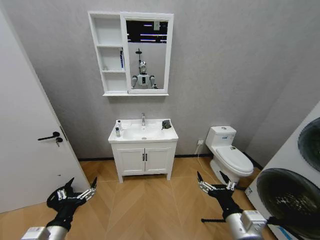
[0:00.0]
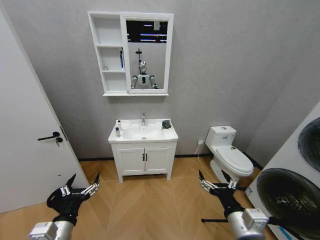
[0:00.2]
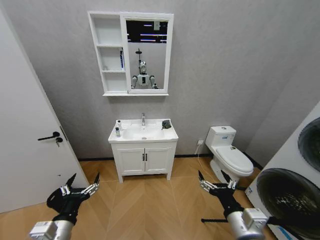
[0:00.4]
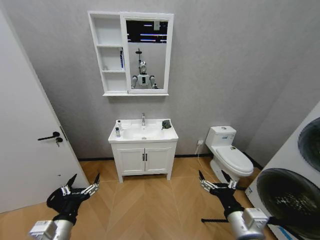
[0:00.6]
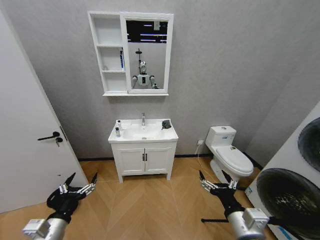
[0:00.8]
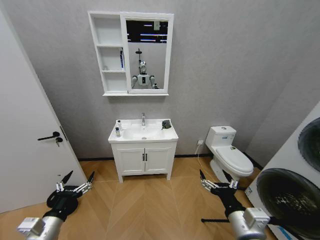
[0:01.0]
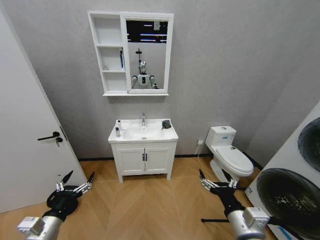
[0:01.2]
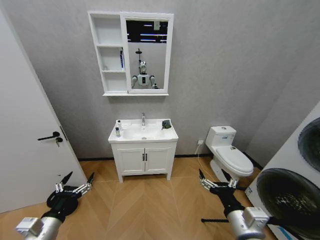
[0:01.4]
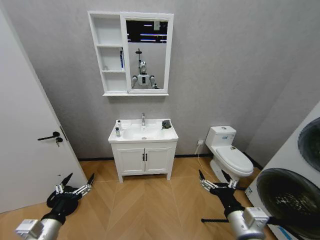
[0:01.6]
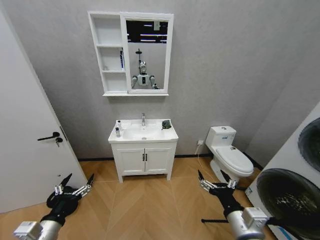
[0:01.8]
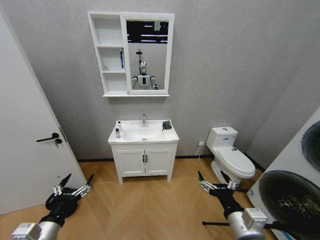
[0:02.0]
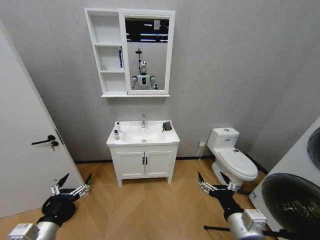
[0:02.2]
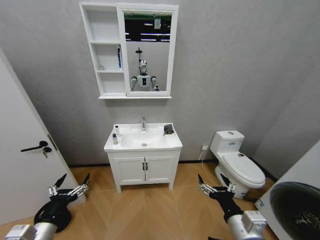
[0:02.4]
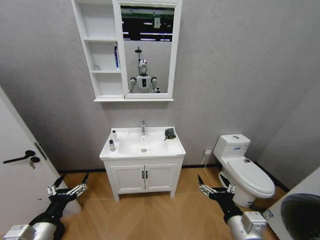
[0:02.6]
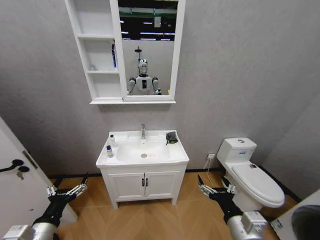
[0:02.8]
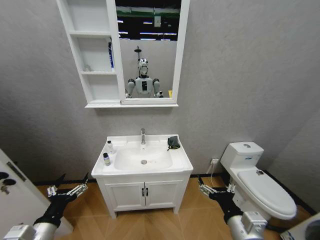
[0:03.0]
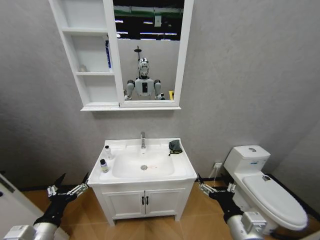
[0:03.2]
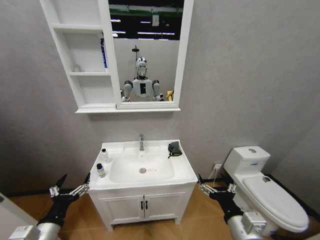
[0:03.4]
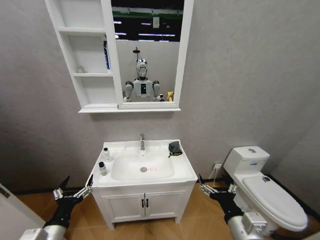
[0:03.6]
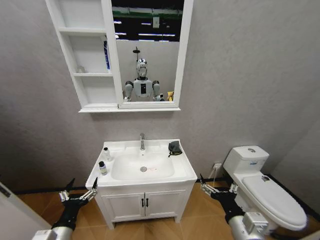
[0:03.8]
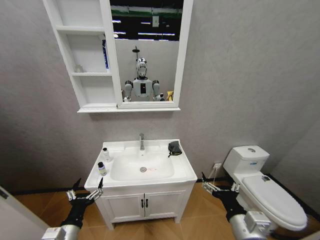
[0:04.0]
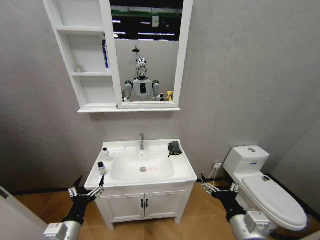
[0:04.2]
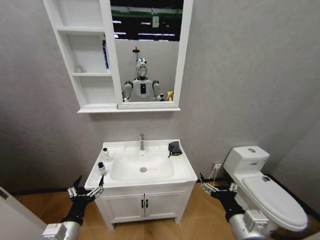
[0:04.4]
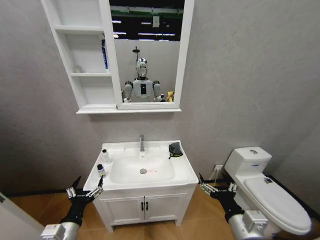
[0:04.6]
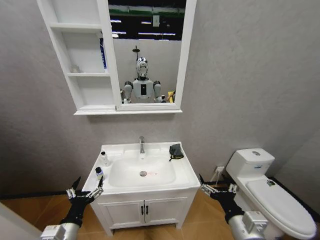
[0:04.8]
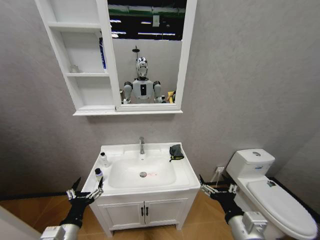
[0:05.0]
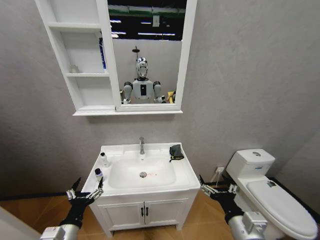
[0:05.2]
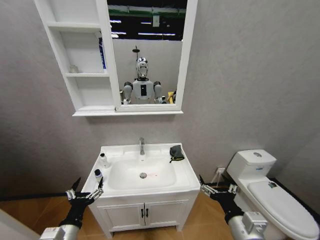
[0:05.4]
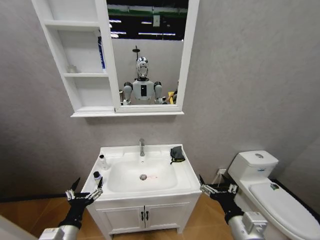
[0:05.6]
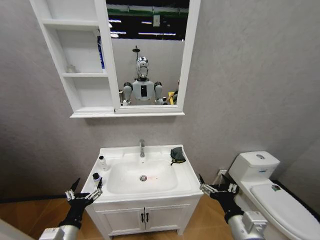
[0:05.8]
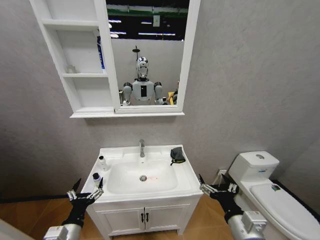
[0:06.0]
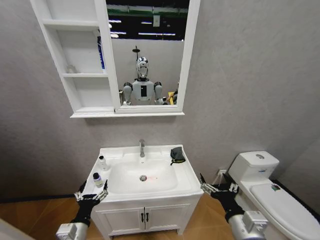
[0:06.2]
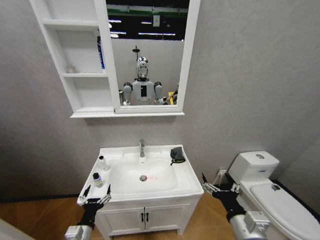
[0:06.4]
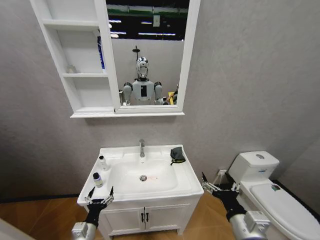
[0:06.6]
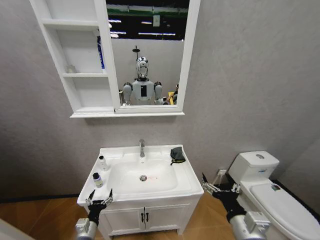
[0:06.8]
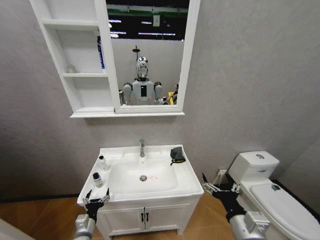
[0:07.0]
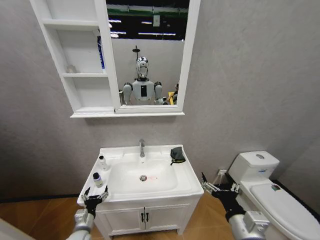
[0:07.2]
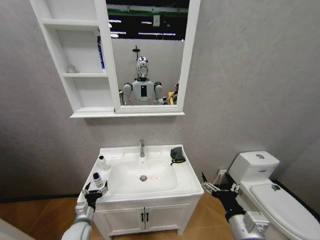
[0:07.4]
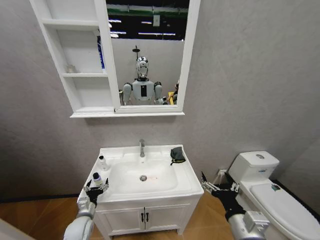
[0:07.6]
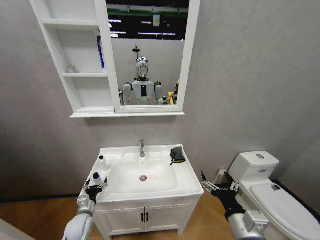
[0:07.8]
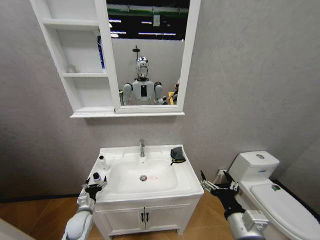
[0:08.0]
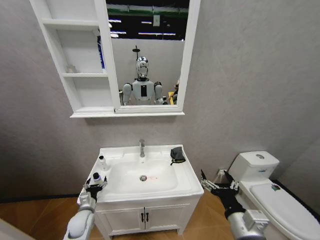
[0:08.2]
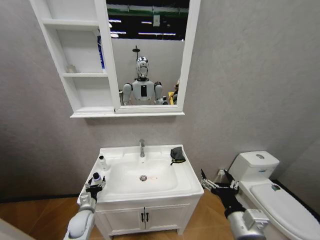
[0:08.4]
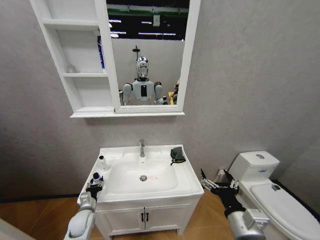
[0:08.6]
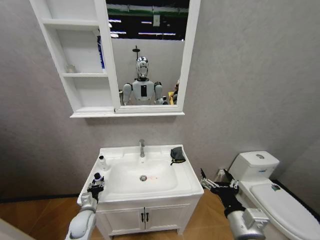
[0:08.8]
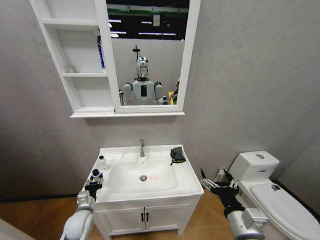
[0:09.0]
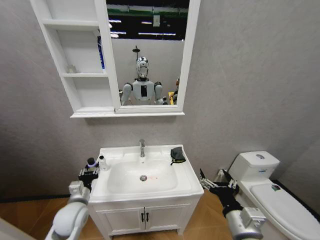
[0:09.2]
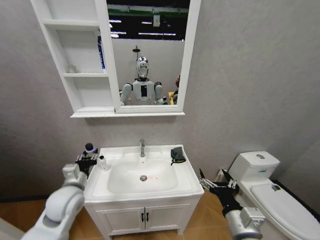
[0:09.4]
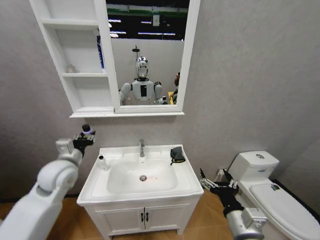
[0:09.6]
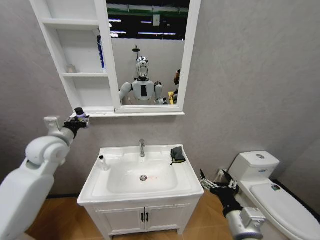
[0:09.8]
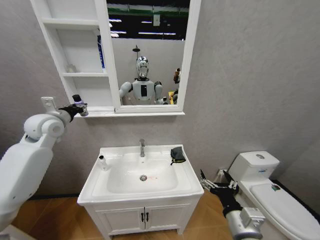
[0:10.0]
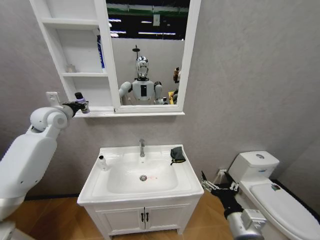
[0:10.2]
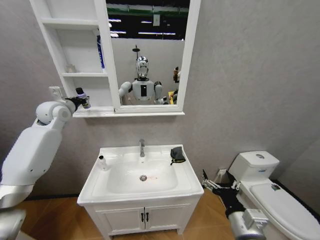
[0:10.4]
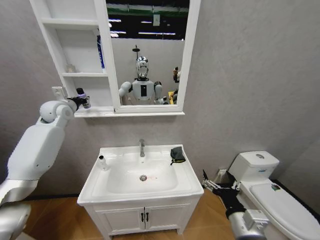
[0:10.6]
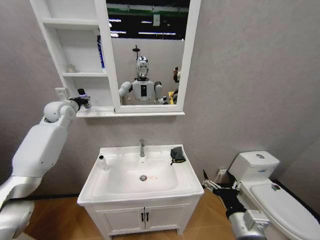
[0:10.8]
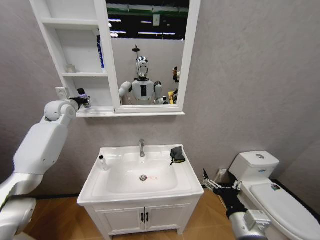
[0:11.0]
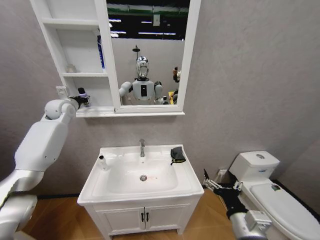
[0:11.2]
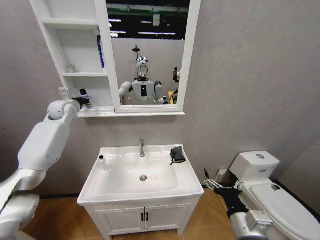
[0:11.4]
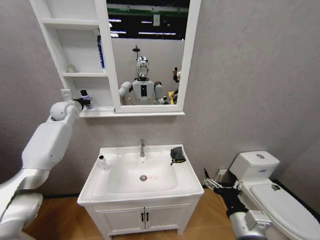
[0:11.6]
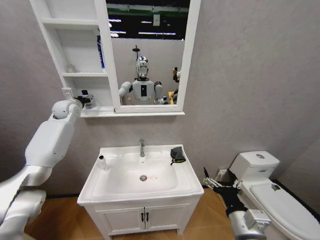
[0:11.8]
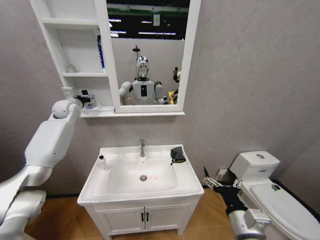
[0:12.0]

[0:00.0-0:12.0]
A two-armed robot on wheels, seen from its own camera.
Task of the whole recording: Move facial cleanser and shampoo from washbasin to cabinet, then wipe washbasin with towel.
0:03.0 to 0:04.4: The left gripper moves to the right, roughly 5 cm.
0:06.0 to 0:07.6: The left gripper moves forward and downward, approximately 15 cm.
0:07.6 to 0:09.0: The left gripper closes its fingers.
0:09.0 to 0:10.4: The left gripper moves upward and forward, some 50 cm.
0:10.4 to 0:12.0: The left gripper heads forward, covering approximately 5 cm, and opens its fingers.

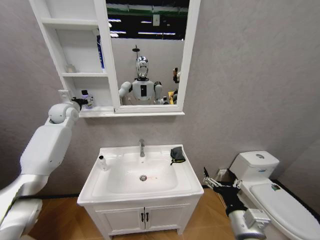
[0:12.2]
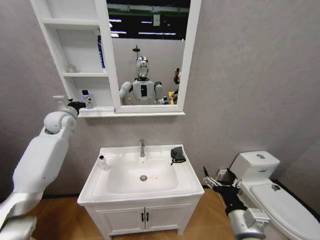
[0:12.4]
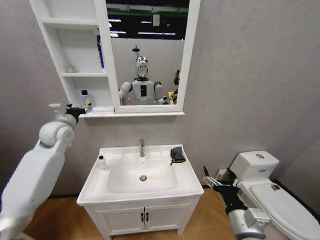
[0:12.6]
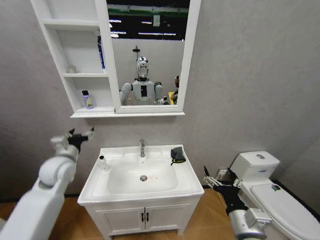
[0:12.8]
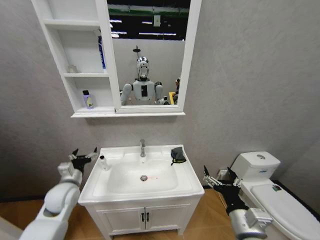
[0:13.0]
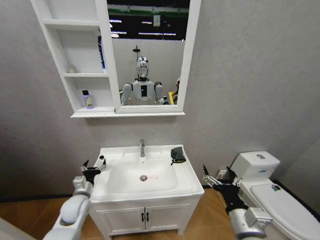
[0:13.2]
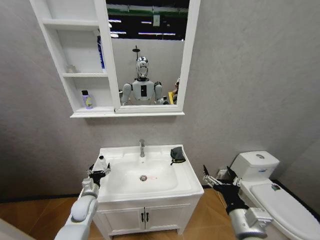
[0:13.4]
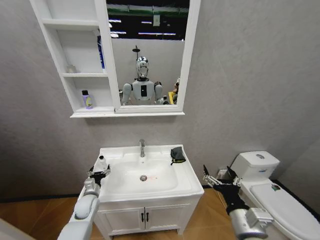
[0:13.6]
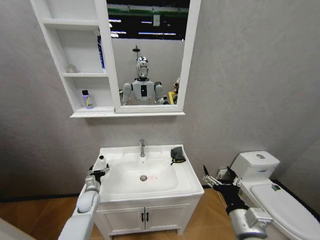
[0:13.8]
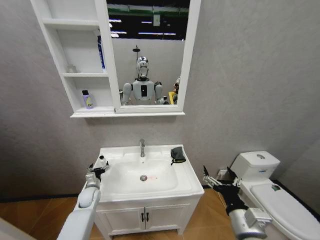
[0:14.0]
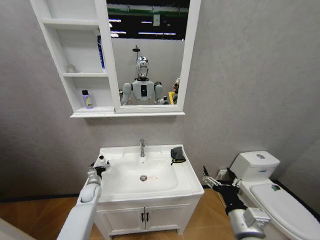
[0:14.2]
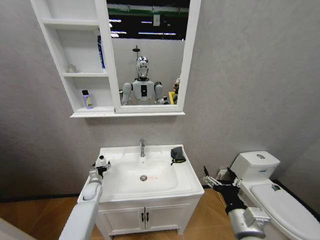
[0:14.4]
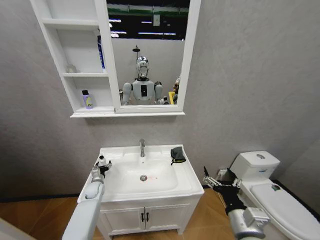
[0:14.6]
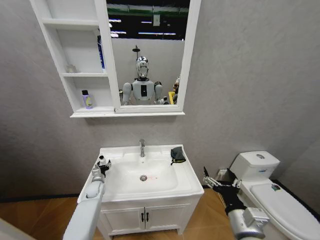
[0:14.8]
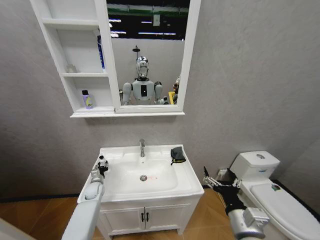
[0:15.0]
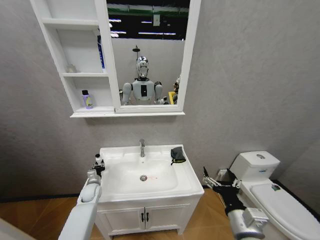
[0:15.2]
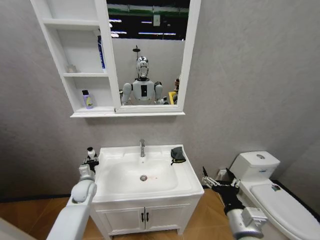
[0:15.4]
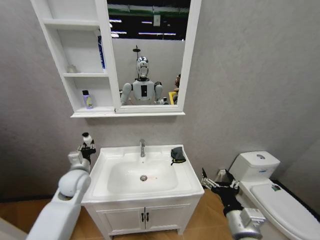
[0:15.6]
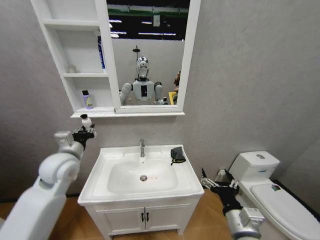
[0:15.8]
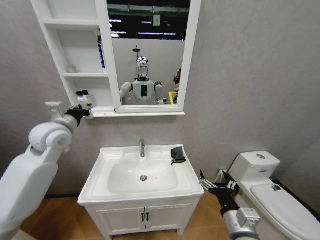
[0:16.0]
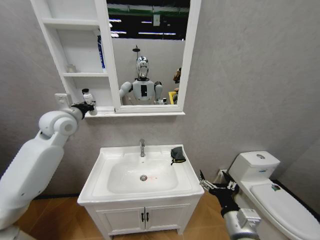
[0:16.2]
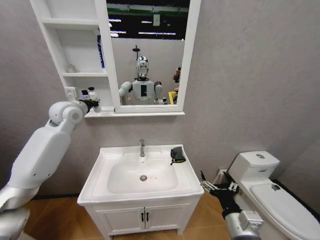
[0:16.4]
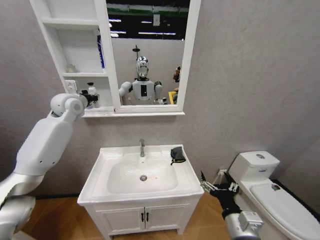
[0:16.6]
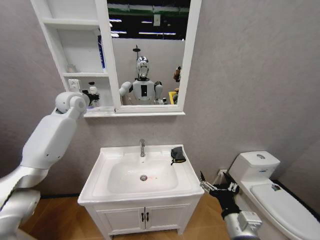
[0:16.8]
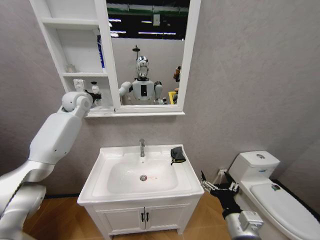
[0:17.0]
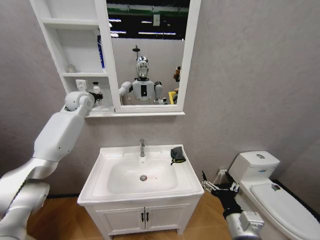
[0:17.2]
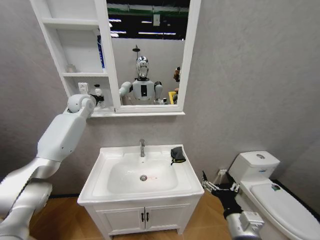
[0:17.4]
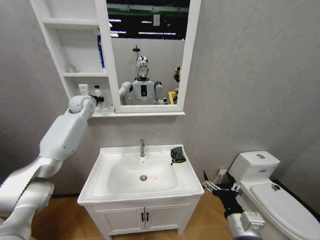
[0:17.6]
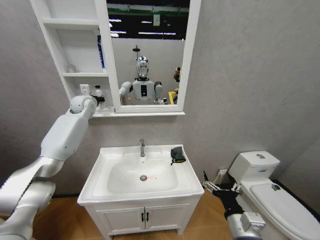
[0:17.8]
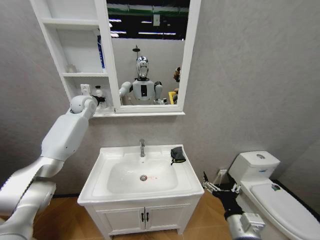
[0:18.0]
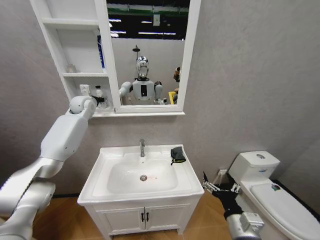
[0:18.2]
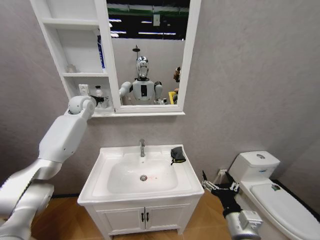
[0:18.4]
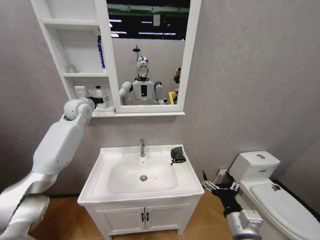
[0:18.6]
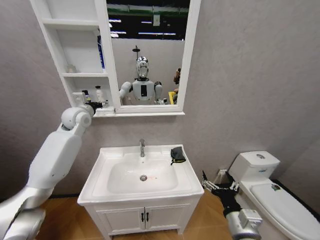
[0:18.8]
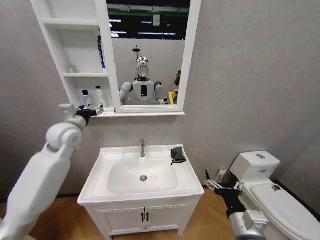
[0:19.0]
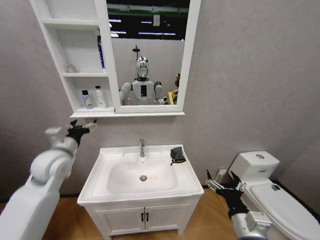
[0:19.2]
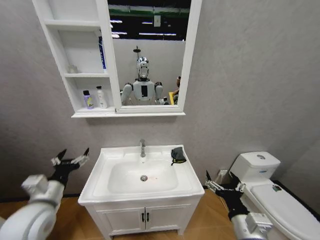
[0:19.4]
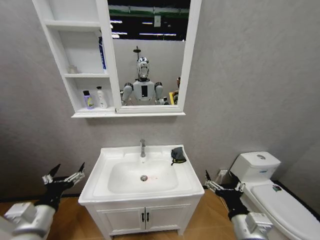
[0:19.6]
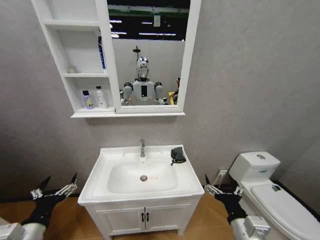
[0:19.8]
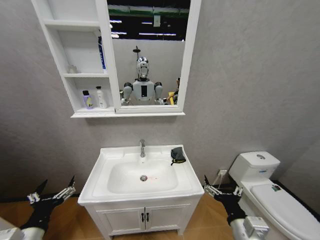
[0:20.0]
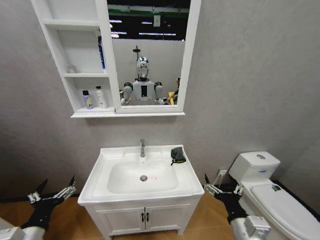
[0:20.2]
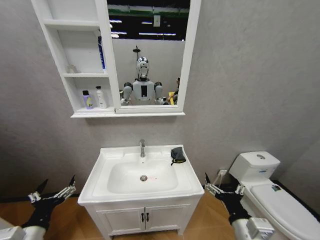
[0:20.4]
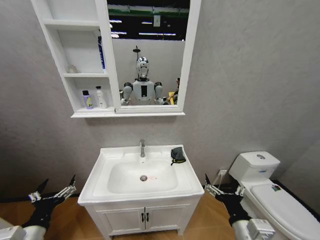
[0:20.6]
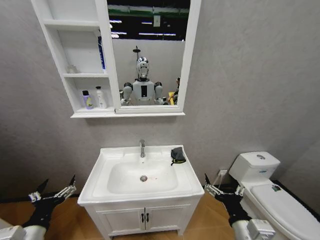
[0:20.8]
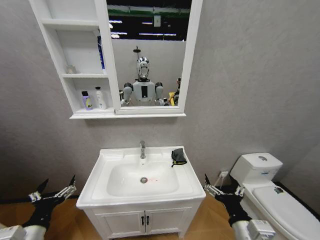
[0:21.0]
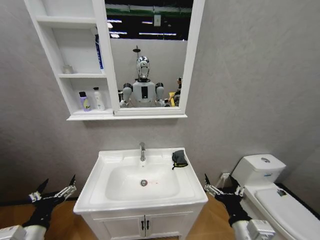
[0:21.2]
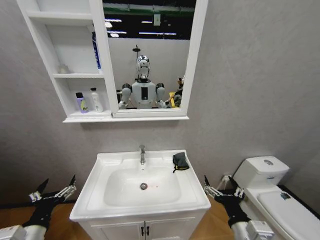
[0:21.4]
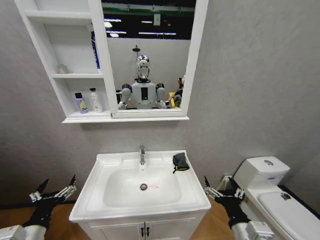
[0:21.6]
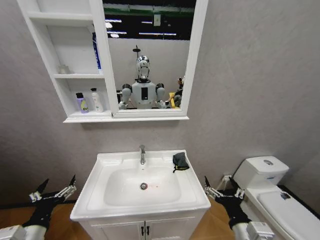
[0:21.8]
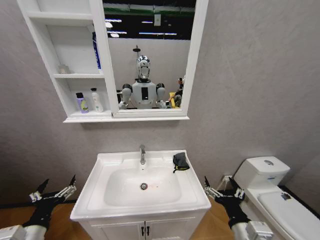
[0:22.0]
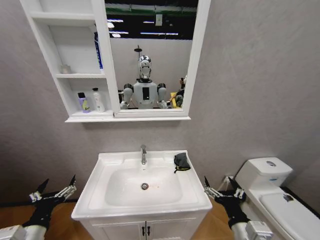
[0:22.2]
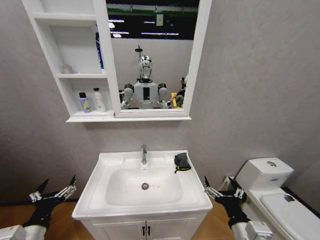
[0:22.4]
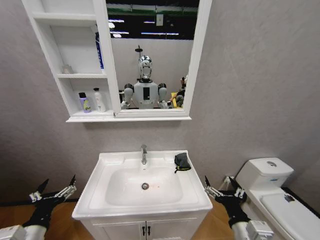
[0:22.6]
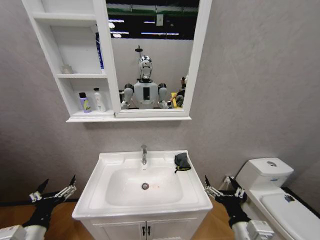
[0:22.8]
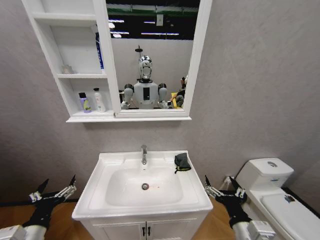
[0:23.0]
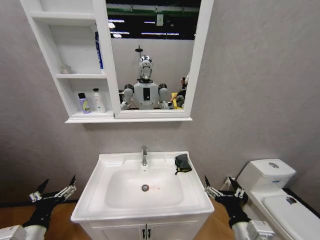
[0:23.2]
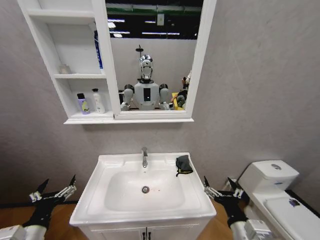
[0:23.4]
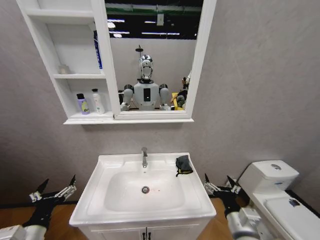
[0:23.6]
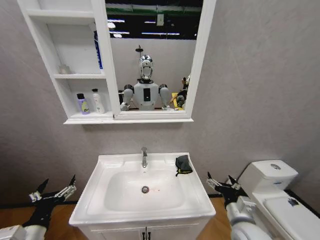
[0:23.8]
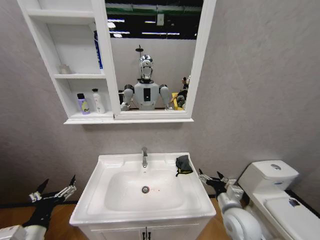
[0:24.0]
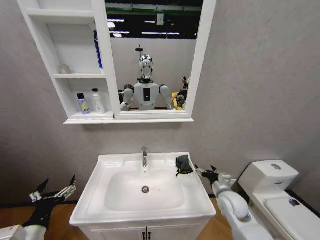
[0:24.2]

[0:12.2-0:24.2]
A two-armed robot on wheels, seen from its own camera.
Task of the whole recording: Move facial cleanser and shampoo from washbasin to cabinet, then wipe washbasin with towel.
0:12.2 to 0:13.8: The left gripper travels downward by approximately 40 cm.
0:13.8 to 0:15.2: The left gripper closes.
0:15.2 to 0:16.6: The left gripper is displaced upward by roughly 50 cm.
0:16.6 to 0:18.2: The left gripper moves forward, roughly 10 cm, and opens.
0:18.2 to 0:19.8: The left gripper goes approximately 50 cm backward and downward, and opens its fingers.
0:19.8 to 0:22.6: Both grippers stay about where they are.
0:22.6 to 0:24.2: The right gripper heads forward, covering about 20 cm.
